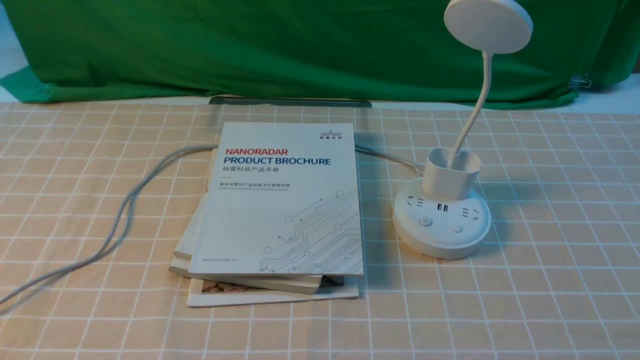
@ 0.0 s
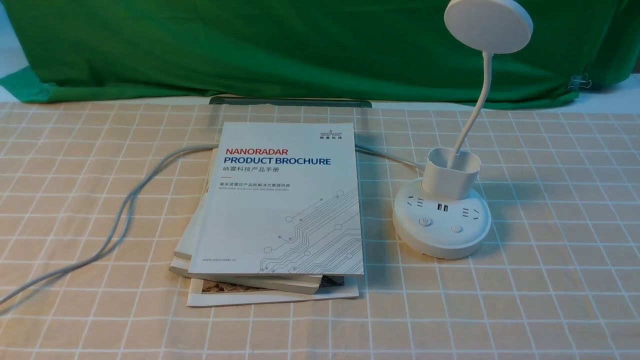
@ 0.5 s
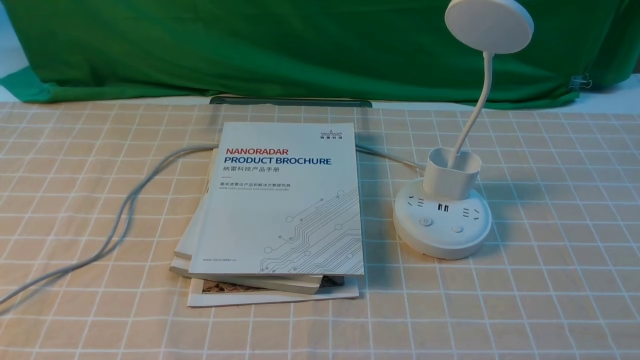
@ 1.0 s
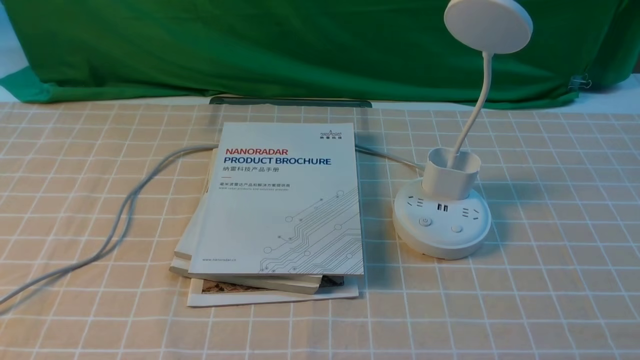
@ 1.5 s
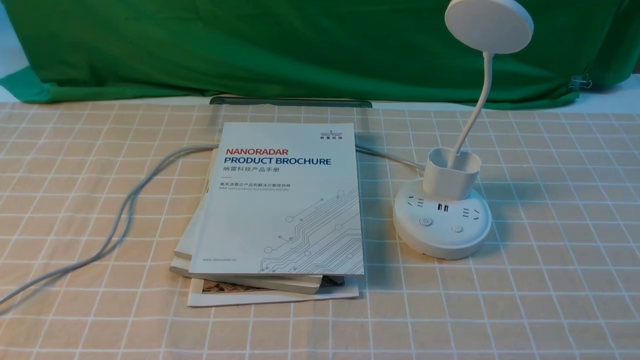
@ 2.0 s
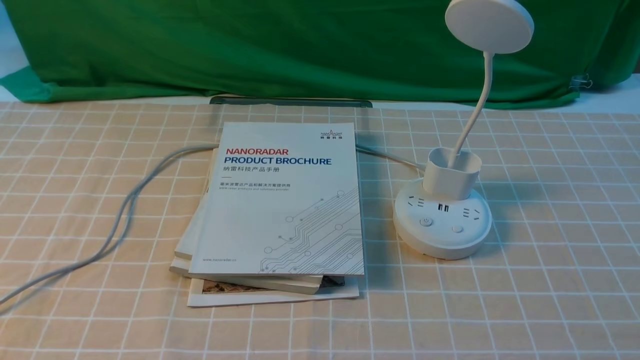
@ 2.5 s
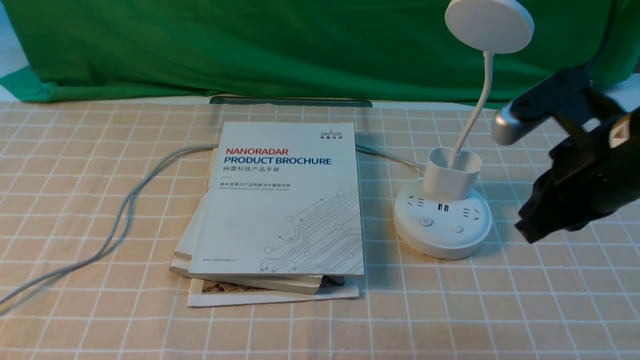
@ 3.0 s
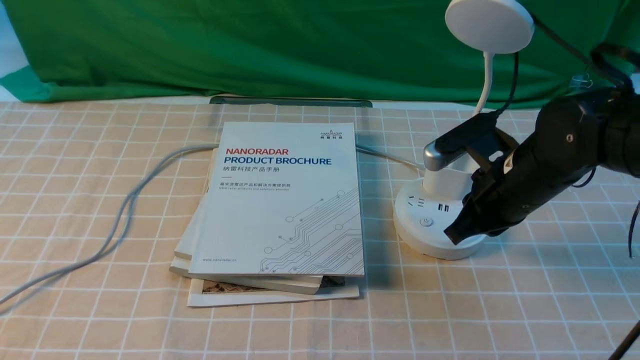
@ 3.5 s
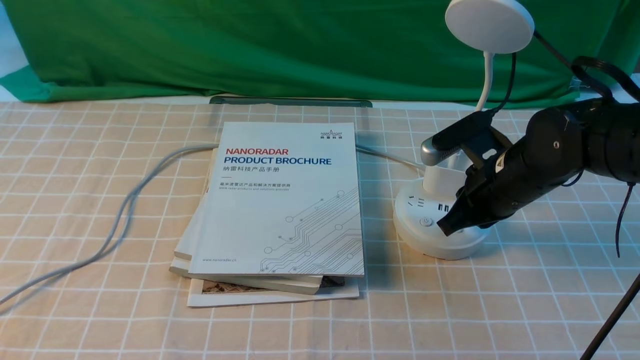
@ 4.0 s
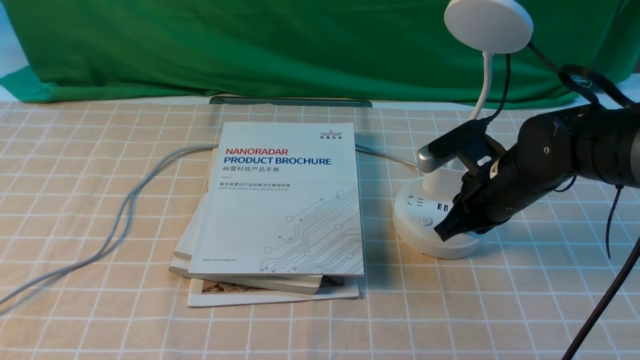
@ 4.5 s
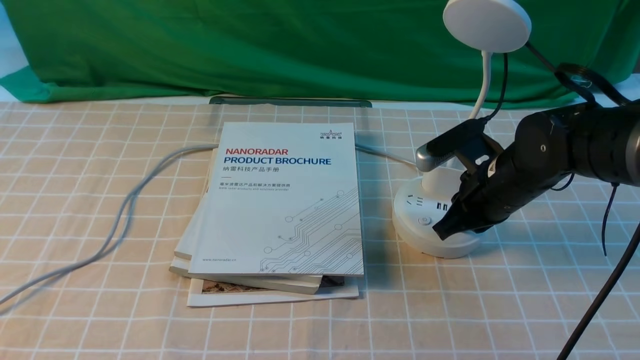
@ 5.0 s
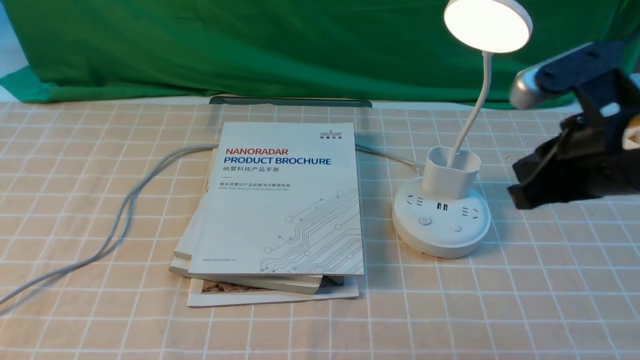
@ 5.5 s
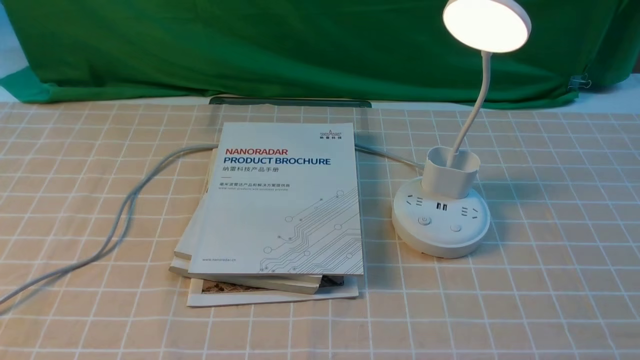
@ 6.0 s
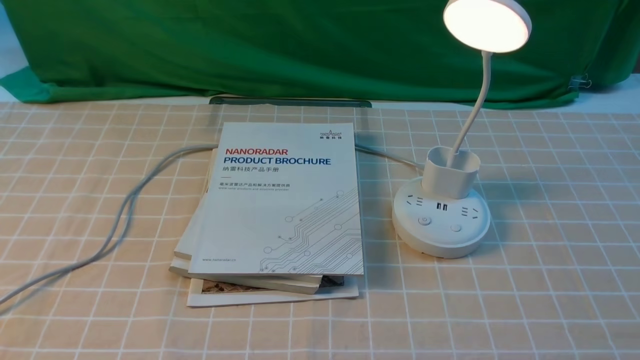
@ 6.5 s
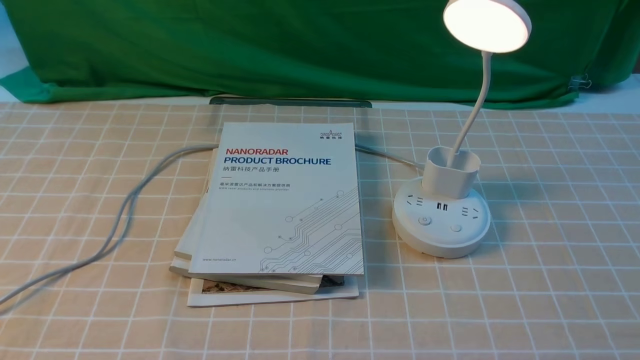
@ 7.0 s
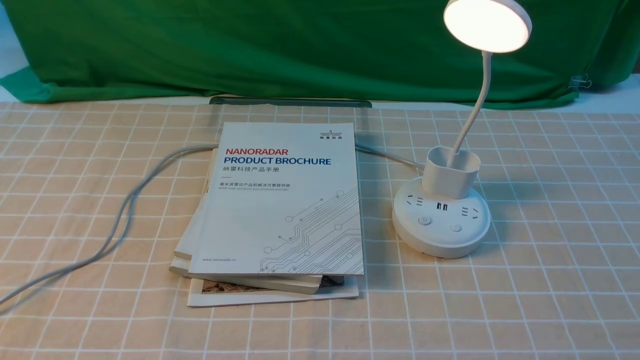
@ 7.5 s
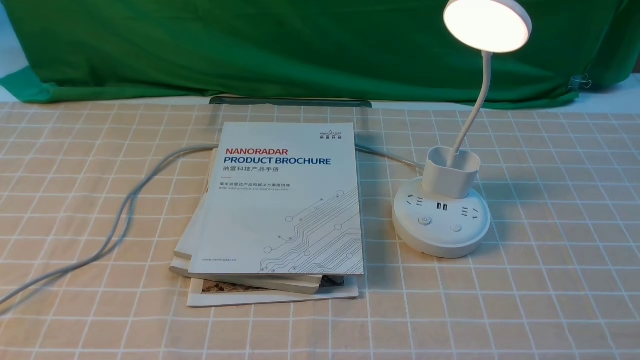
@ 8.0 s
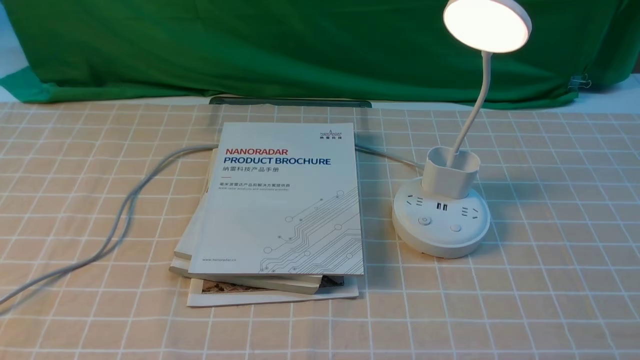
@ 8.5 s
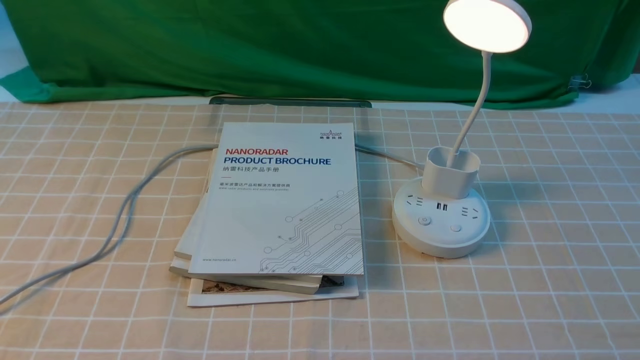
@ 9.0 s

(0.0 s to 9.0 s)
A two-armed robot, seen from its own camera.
Step, 0.0 s - 5.0 s: use the right arm to press the button switch on the lamp holder.
2.0 s - 4.5 s: The right gripper goes approximately 30 cm forward and to the left, and closes up.
4.5 s - 7.0 s: The right gripper shifts about 35 cm backward and to the right, and opens up.
